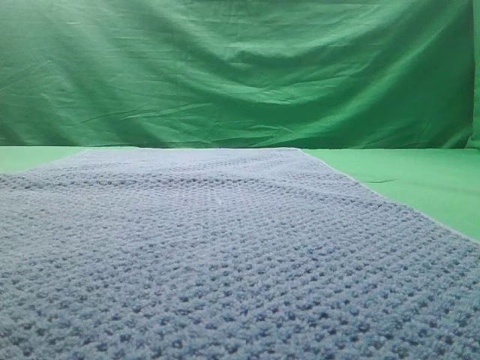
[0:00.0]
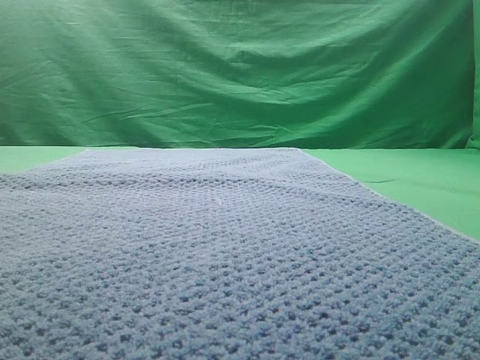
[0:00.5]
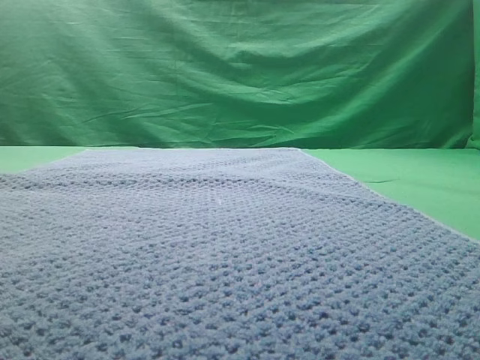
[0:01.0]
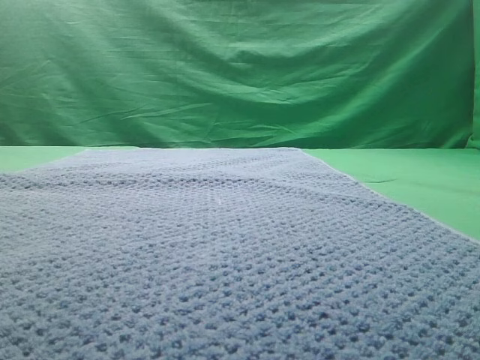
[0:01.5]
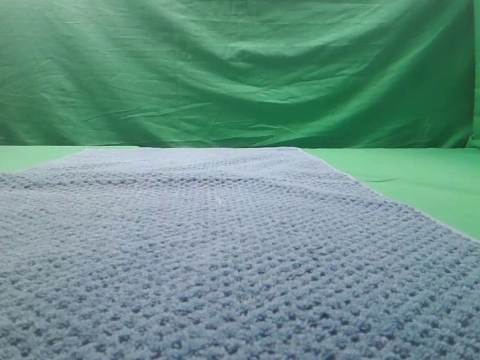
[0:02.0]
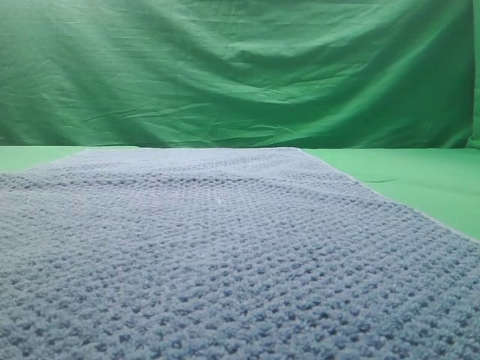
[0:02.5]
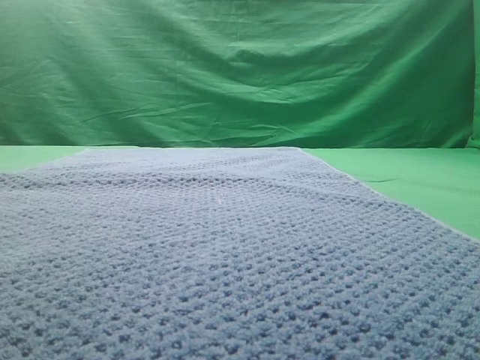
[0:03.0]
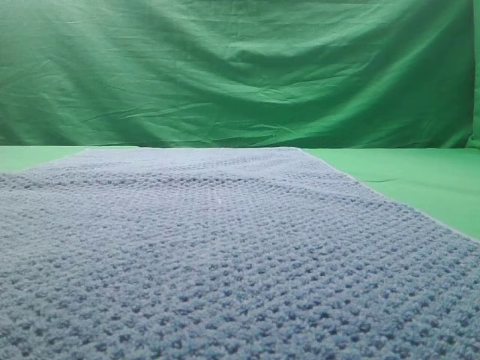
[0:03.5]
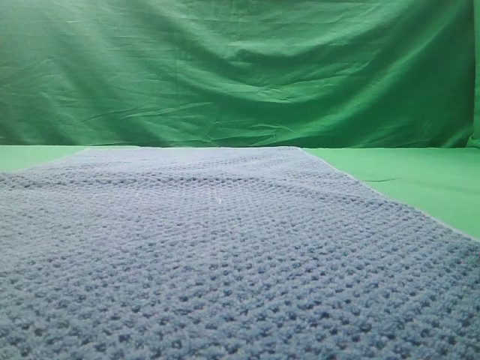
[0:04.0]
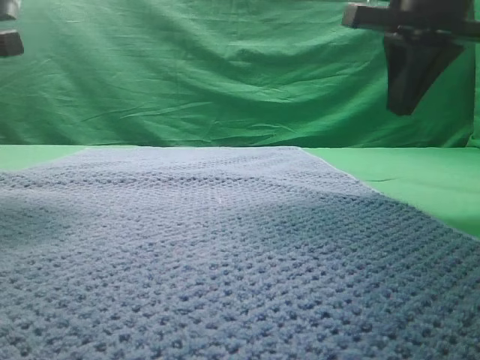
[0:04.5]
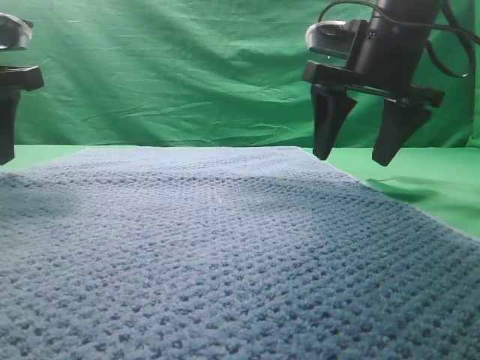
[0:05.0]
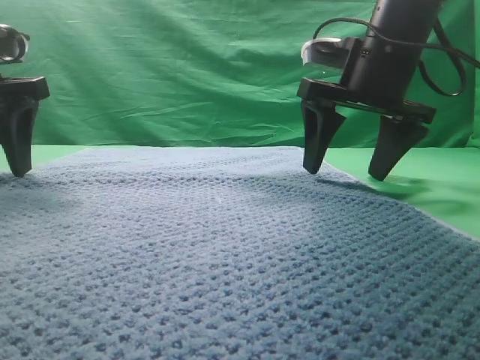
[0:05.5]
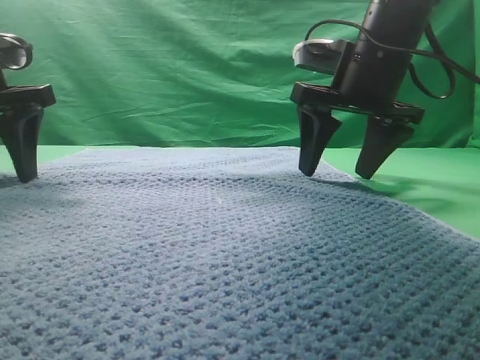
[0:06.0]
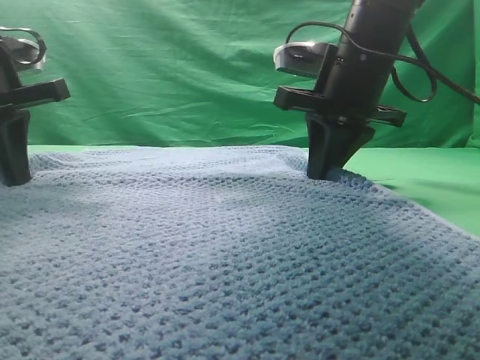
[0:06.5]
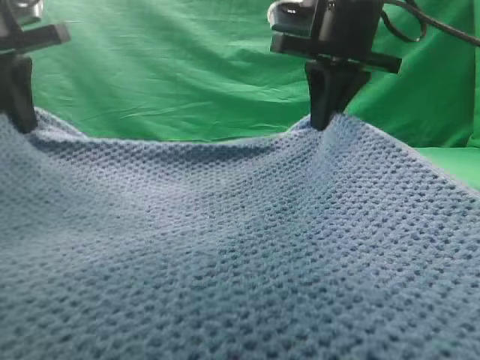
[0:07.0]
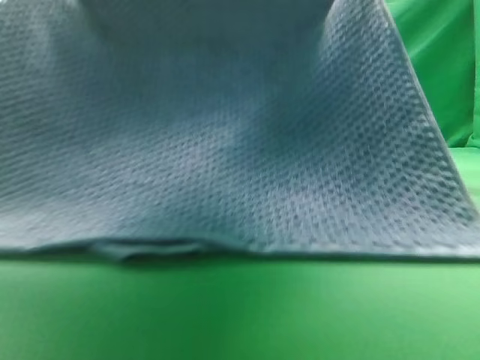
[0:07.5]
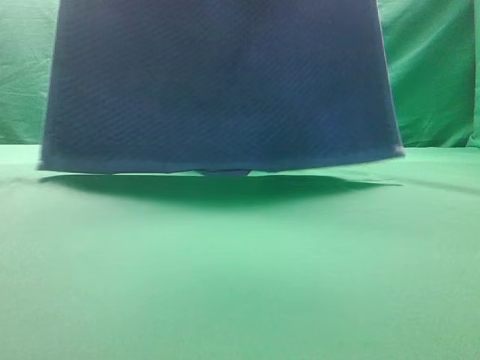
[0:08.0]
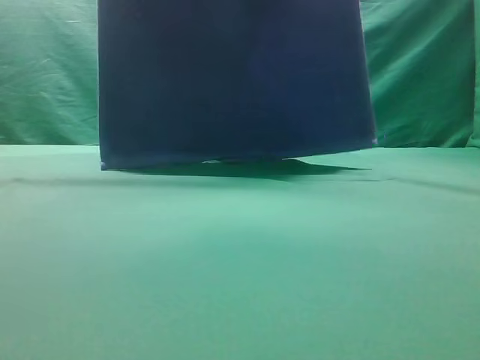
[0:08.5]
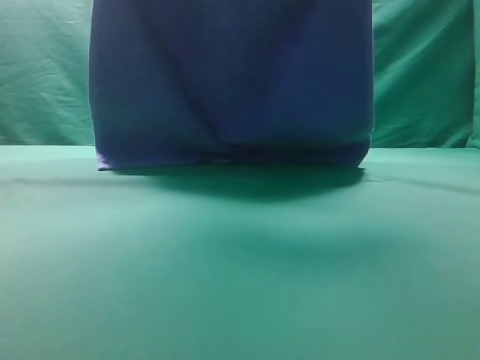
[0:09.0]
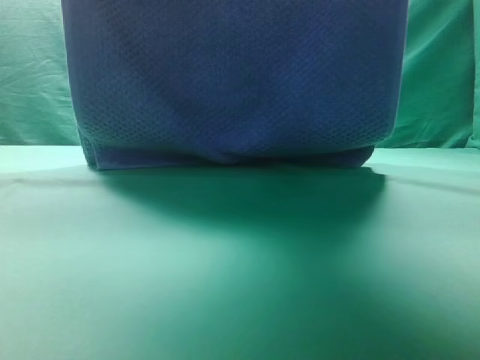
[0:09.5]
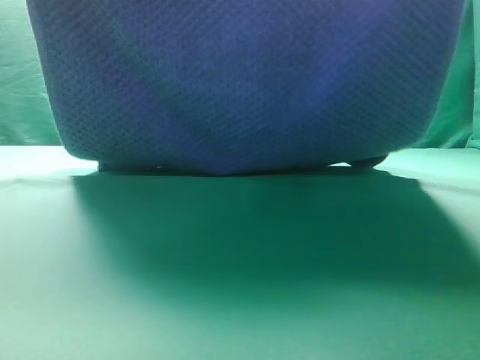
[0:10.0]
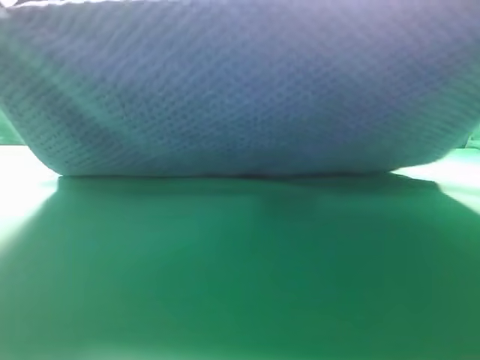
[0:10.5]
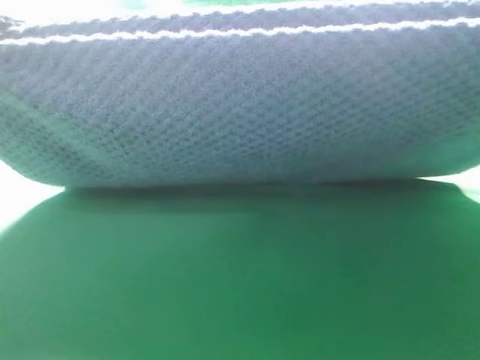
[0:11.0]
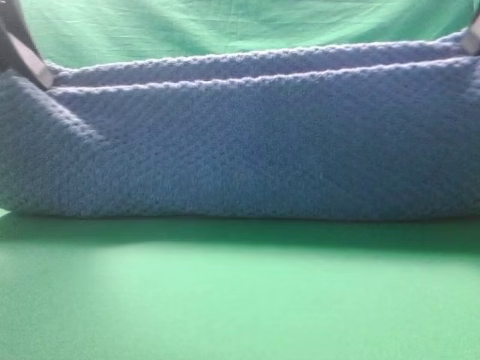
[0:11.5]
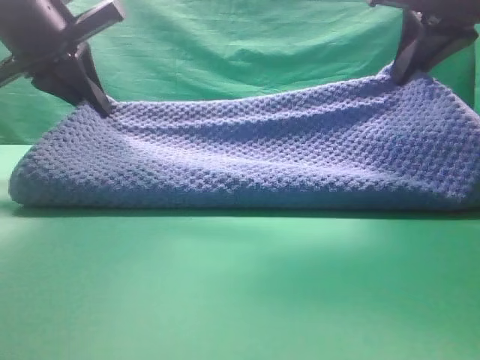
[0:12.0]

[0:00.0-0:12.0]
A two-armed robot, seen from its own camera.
Task of the whole recording: fold the towel on the table twice.
Step, 0:00.0 to 0:08.0: pick up the towel with two arm.

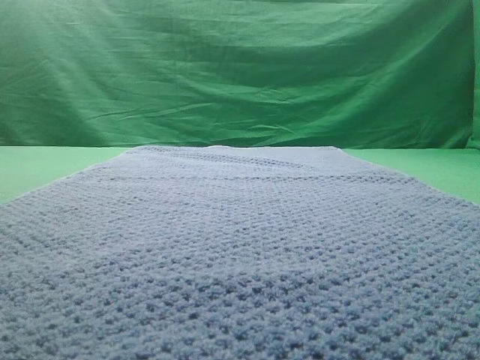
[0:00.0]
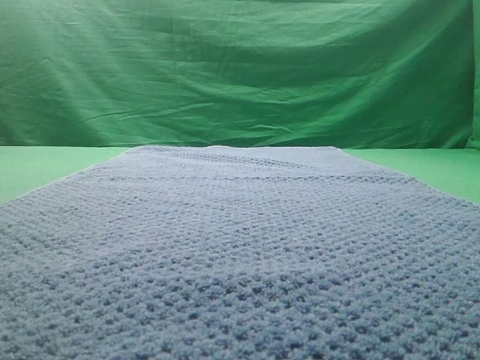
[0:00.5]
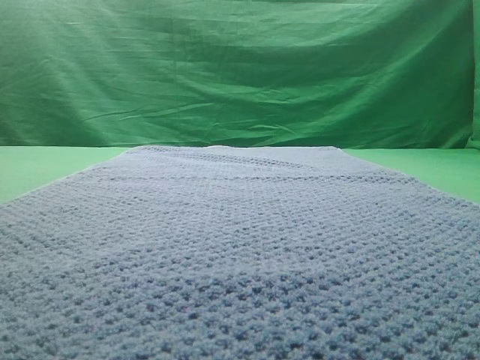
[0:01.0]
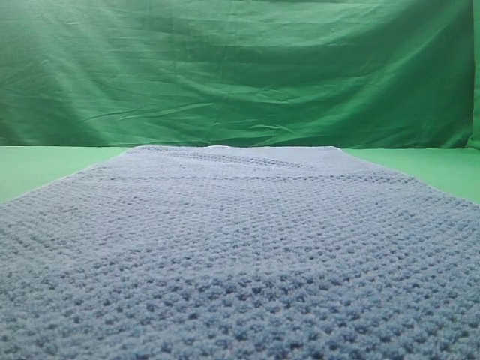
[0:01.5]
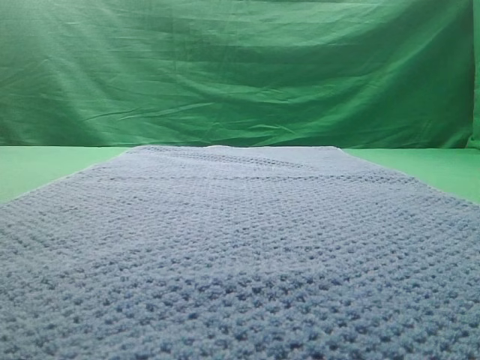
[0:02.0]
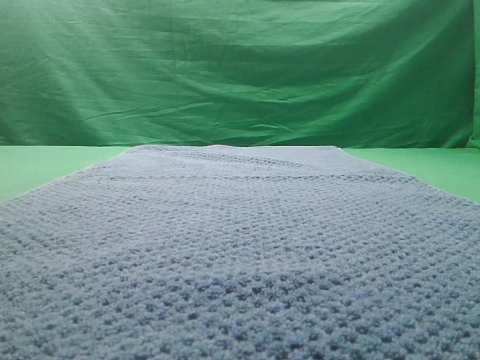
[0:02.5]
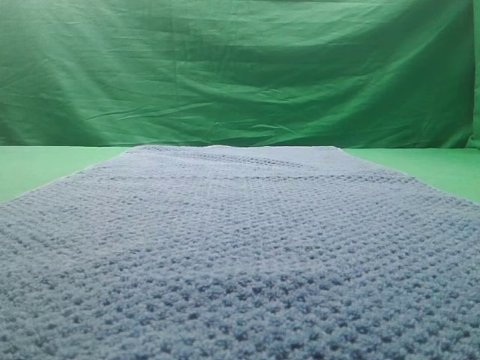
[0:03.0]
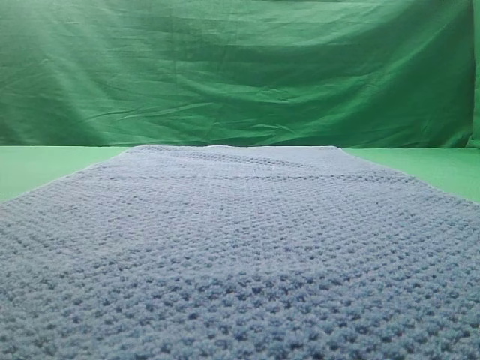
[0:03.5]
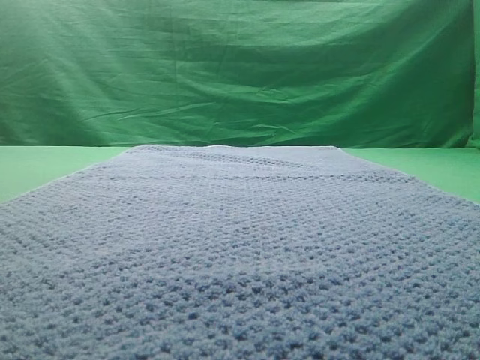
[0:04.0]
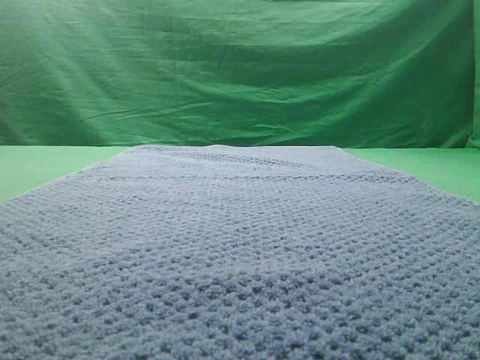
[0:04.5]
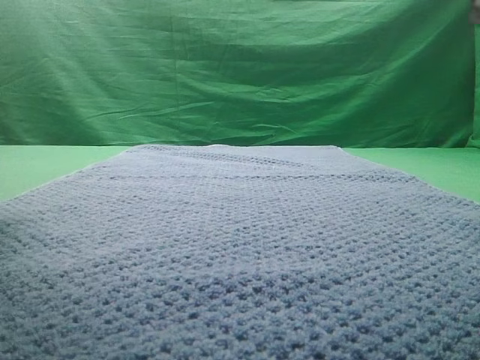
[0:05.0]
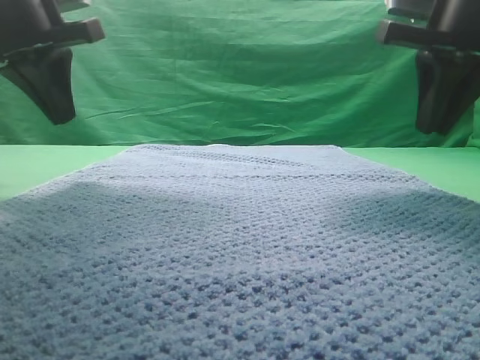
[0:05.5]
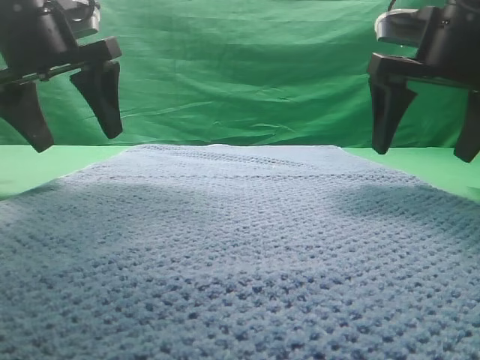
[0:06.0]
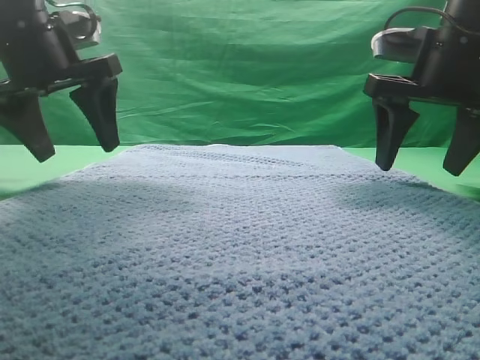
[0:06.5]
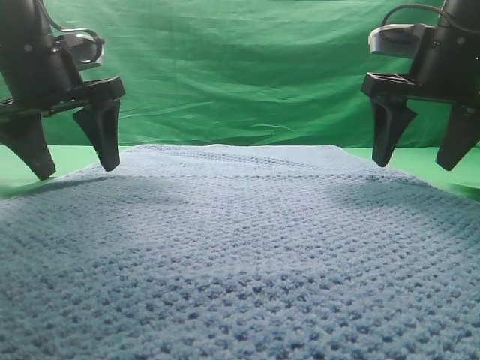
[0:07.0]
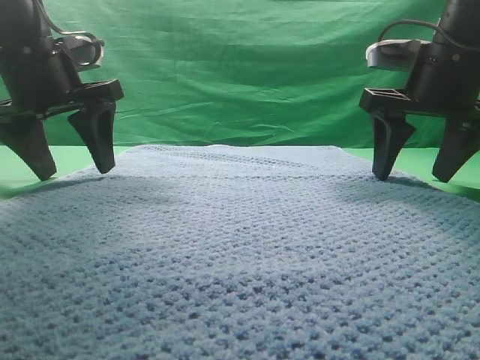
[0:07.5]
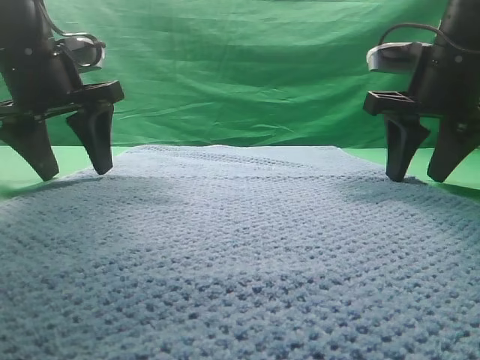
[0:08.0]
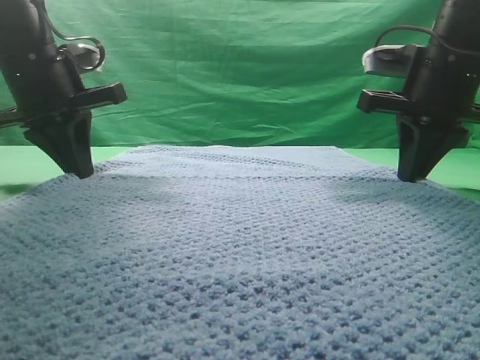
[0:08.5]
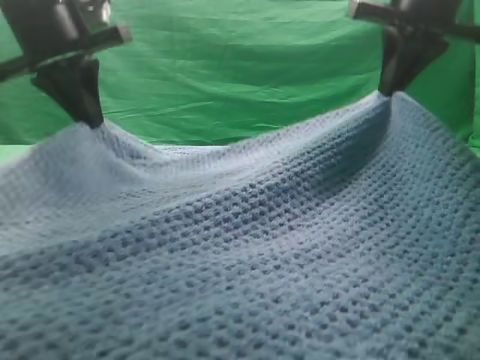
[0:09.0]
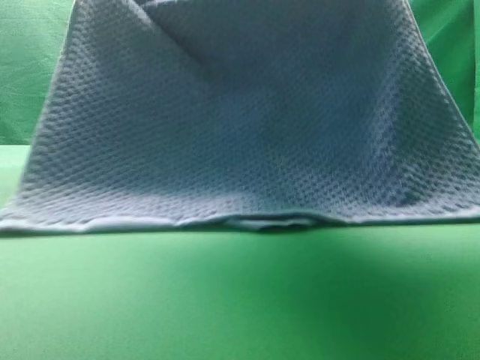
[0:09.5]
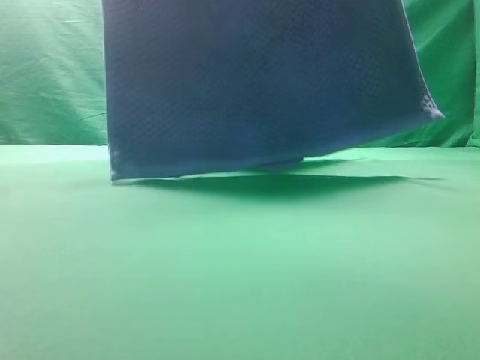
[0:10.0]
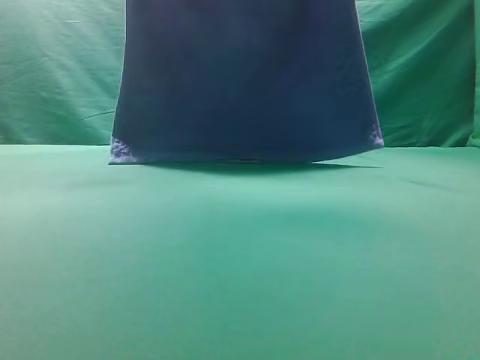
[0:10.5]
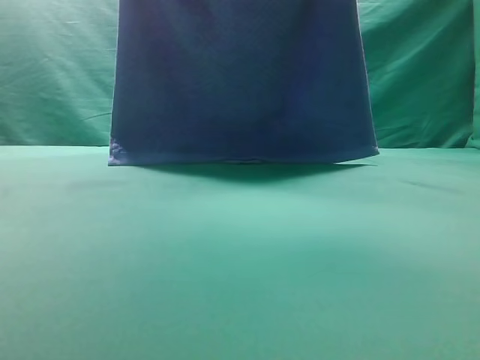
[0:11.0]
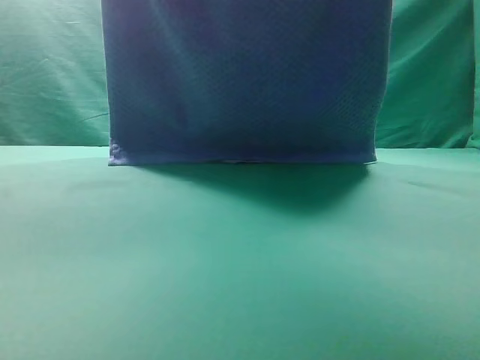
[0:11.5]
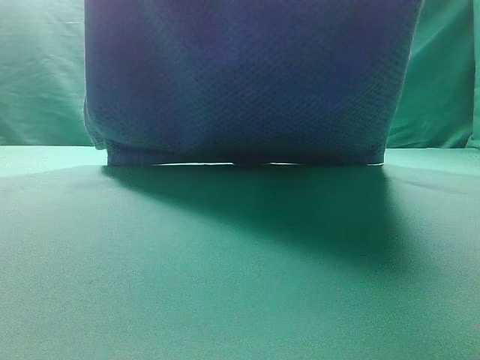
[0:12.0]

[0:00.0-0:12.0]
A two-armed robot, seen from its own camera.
Task of the whole recording: fold the towel on the table twice.
Step, 0:00.0 to 0:10.0: pick up the towel with two arm.

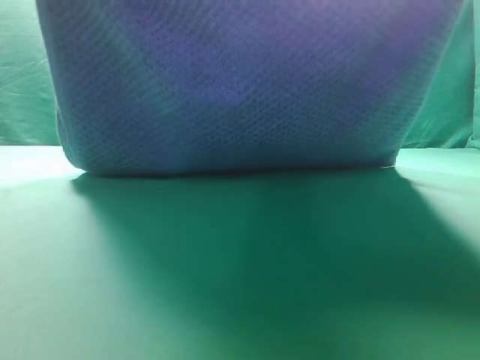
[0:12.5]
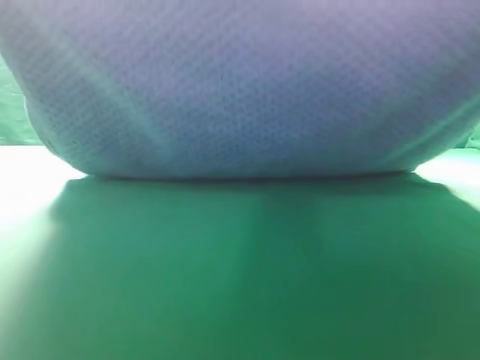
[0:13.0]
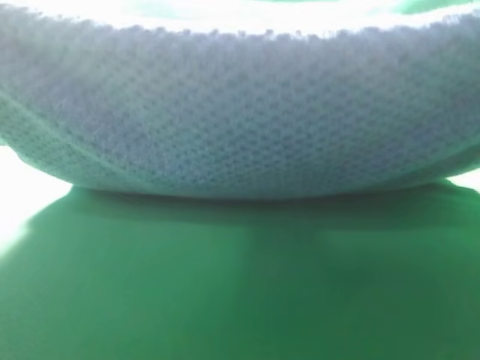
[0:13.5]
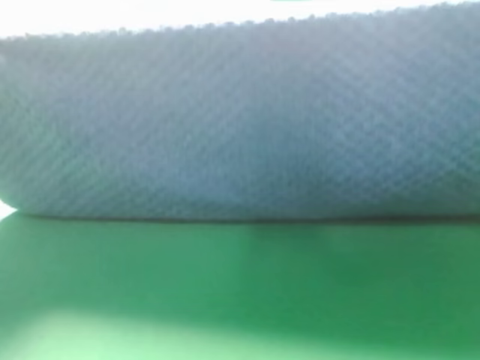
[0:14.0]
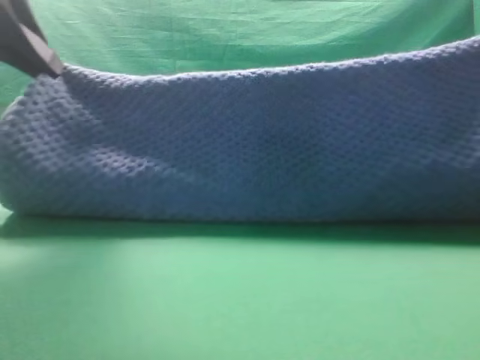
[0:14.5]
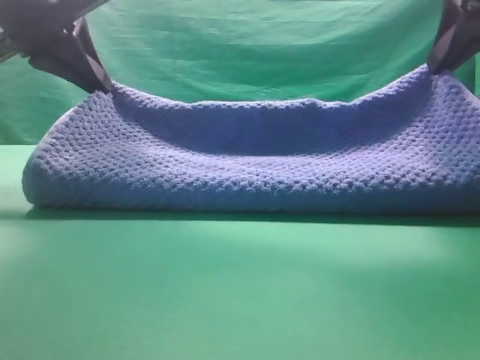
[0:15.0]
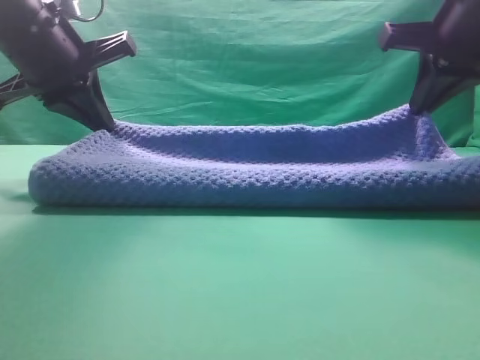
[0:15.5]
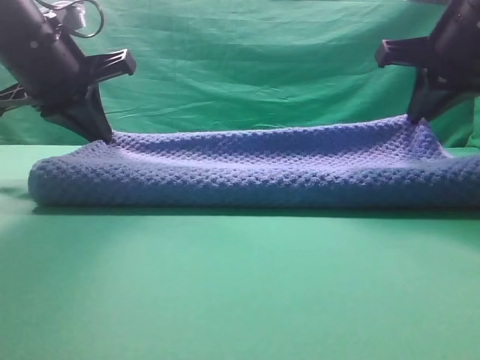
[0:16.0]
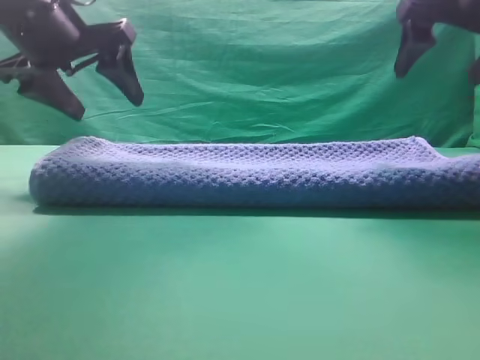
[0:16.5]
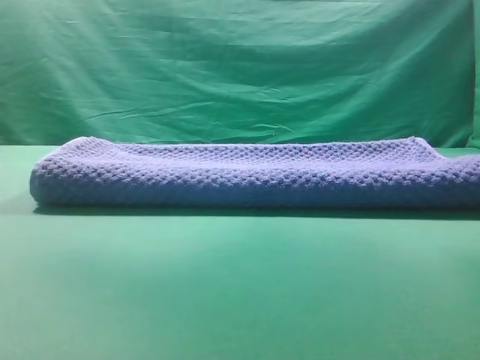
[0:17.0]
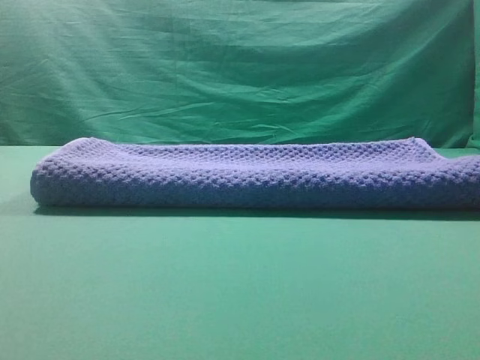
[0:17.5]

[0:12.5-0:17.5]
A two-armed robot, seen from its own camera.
Task of the whole recording: fold the towel on the table twice.
Step, 0:12.5 to 0:16.5: Fold the towel twice on the table.
